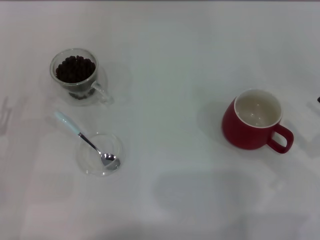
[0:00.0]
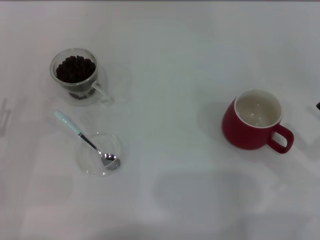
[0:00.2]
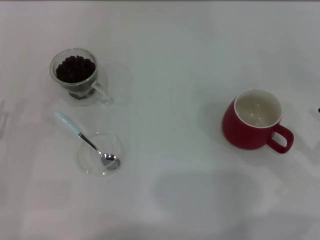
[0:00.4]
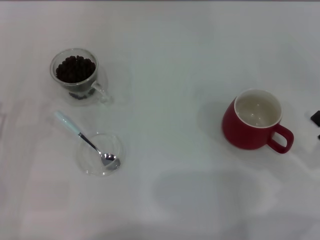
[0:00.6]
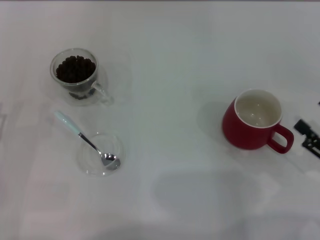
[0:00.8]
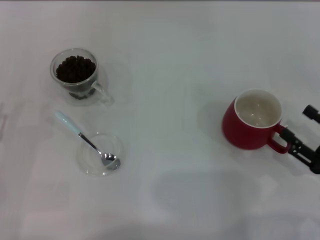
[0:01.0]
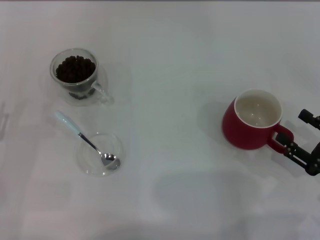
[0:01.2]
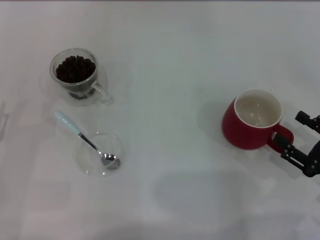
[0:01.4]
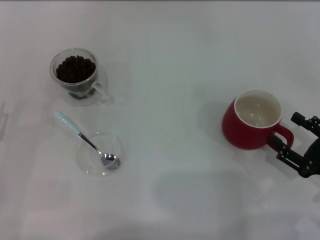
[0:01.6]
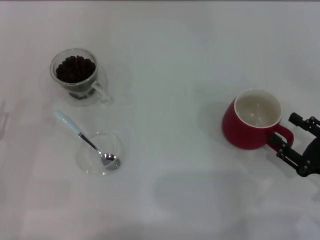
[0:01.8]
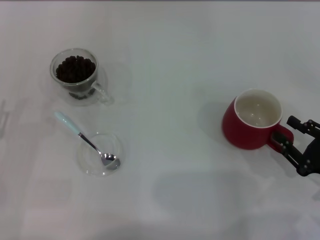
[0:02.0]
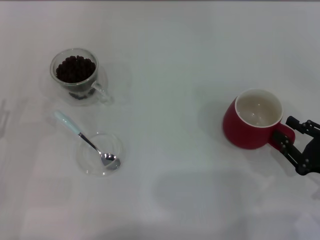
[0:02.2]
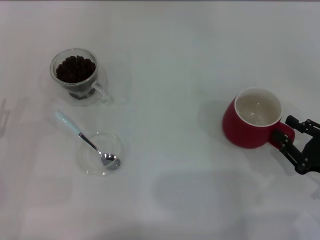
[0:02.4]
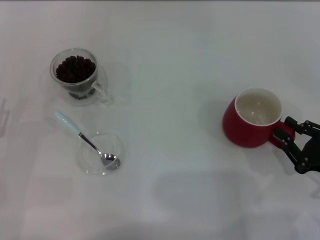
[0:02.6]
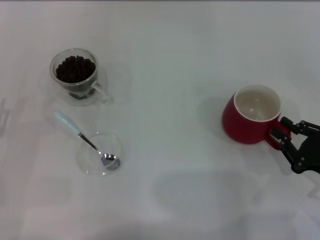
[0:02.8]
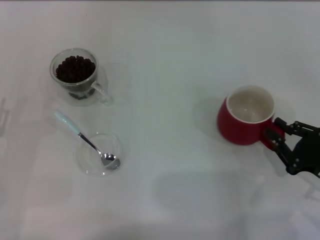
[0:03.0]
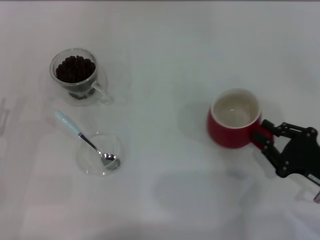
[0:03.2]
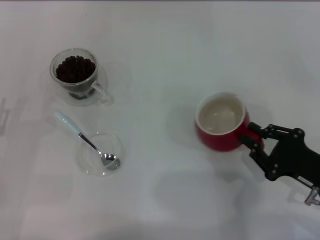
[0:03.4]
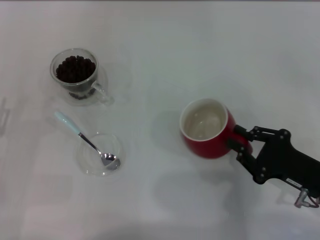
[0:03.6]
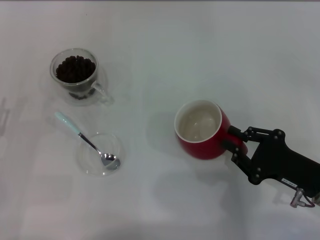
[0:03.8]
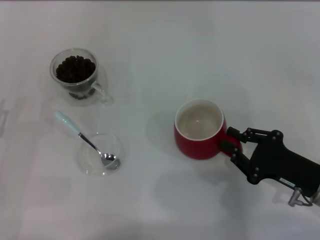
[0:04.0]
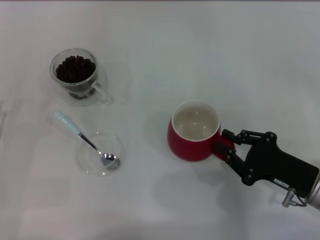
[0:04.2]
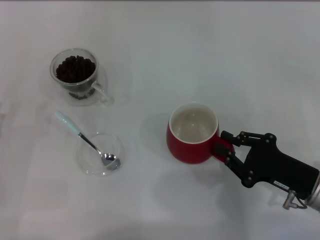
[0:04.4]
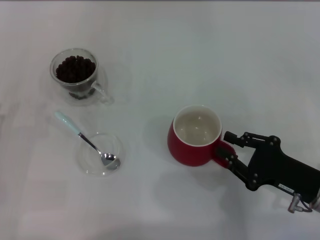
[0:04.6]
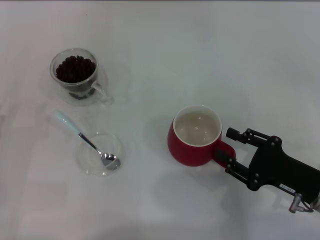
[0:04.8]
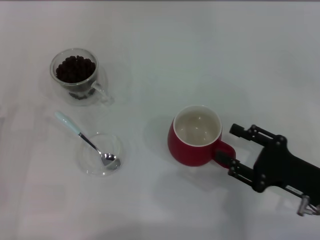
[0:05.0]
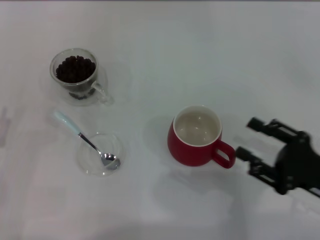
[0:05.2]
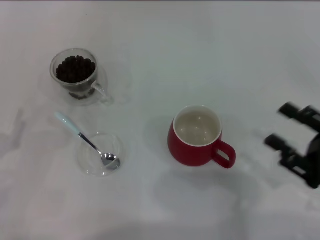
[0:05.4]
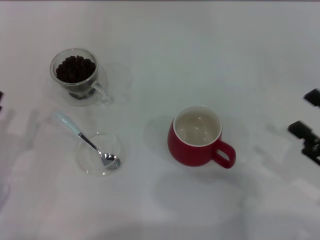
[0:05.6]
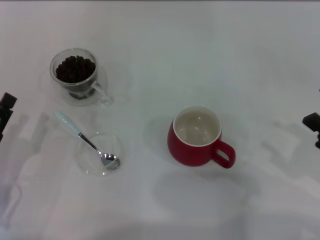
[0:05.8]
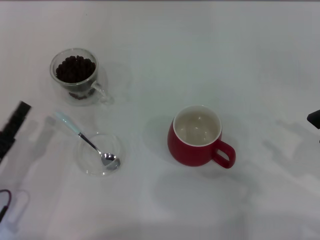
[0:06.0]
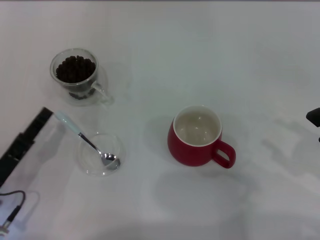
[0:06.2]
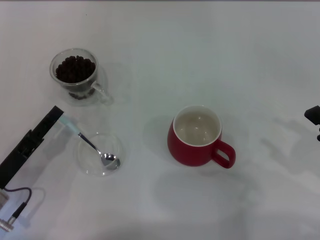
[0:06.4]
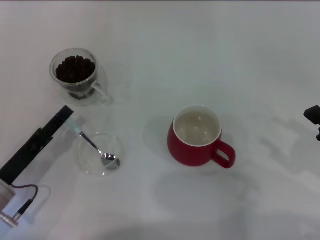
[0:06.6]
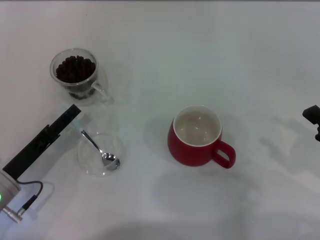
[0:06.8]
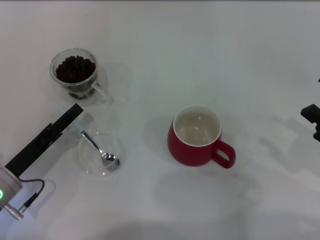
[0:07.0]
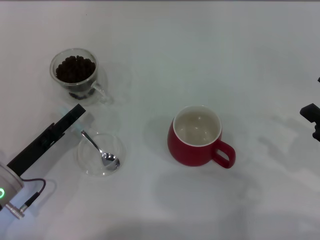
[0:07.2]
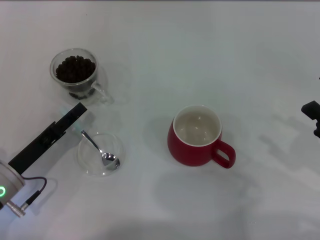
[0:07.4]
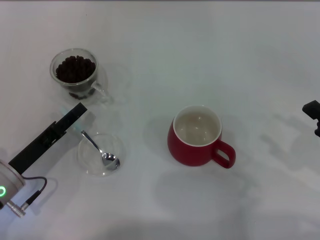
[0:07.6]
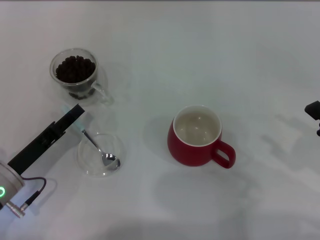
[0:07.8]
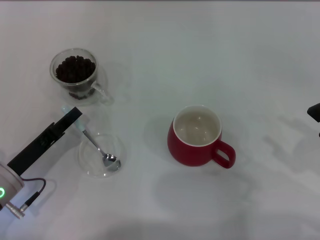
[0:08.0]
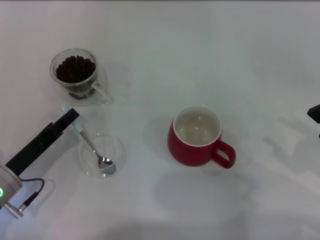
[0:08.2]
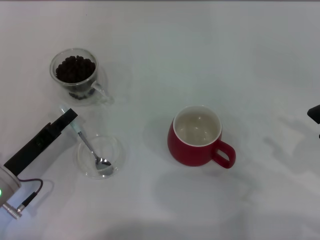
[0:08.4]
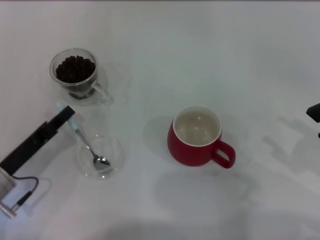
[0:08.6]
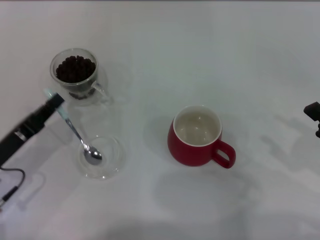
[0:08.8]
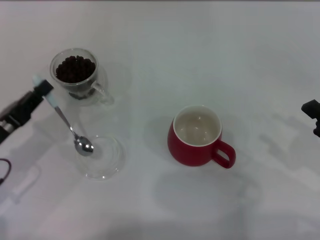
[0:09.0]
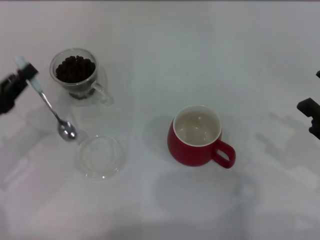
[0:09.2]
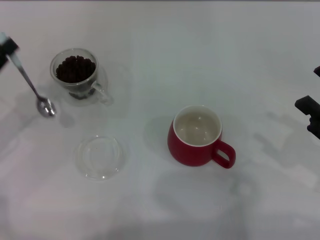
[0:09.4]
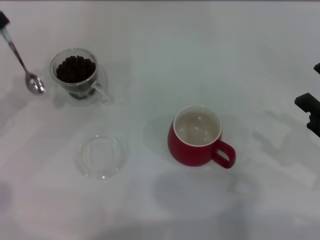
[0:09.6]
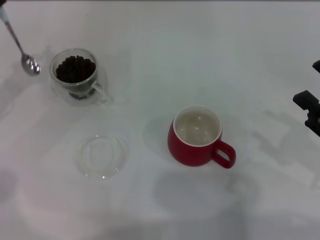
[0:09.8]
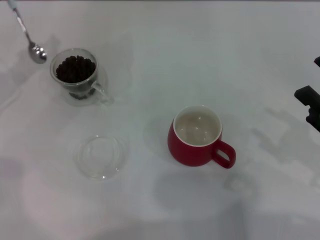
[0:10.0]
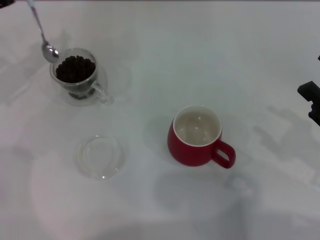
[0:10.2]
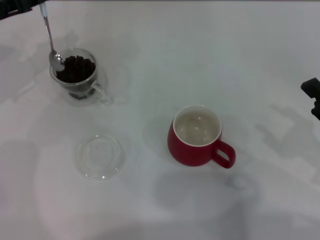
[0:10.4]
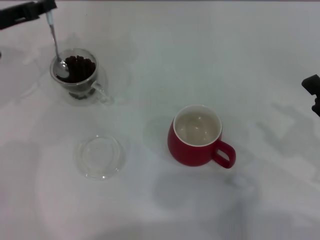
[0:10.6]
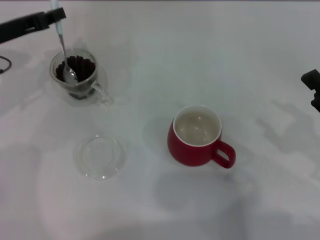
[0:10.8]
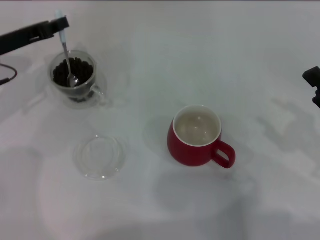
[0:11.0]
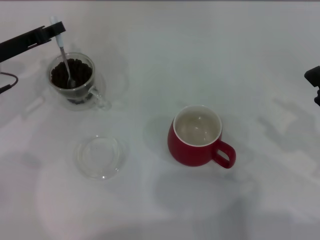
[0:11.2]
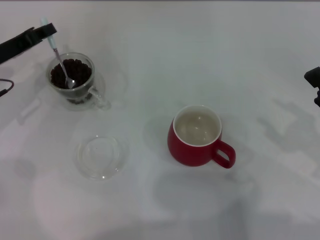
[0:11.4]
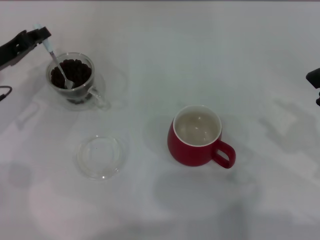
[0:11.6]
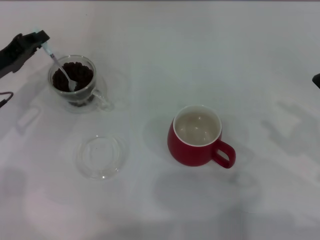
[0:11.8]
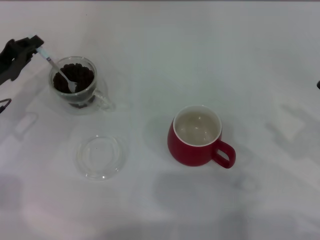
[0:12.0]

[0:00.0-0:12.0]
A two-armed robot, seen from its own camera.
Task of the whole recording: Use a blue spoon to take out the coffee beans from the glass and pour them into the red cup.
Step, 0:00.0 to 0:05.0: Move the cup to the center of view with the left gripper.
Step, 0:05.2 to 0:09.0: Pick up the spoon with the right gripper.
0:00.0 to 0:01.6: The grippers stay close to where they were, moving slightly.
0:01.6 to 0:03.0: The right gripper closes up.
0:03.0 to 0:04.4: The right gripper goes approximately 5 cm to the left.
0:04.4 to 0:06.0: The left gripper heads to the right, covering some 5 cm. Meanwhile the right gripper travels to the right and upward by approximately 10 cm, and opens.
0:06.0 to 0:07.6: The left gripper moves approximately 5 cm.
0:07.6 to 0:09.0: The left gripper changes place by about 5 cm, and closes.
0:09.0 to 0:10.4: The left gripper shifts roughly 20 cm forward and upward.
0:10.4 to 0:12.0: The left gripper goes roughly 10 cm downward and backward.

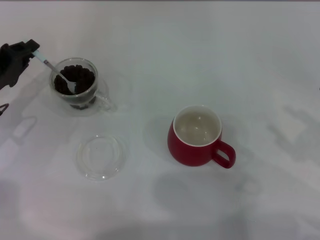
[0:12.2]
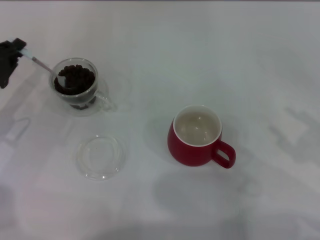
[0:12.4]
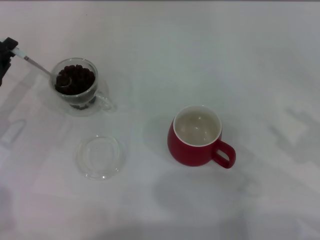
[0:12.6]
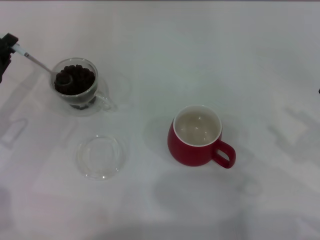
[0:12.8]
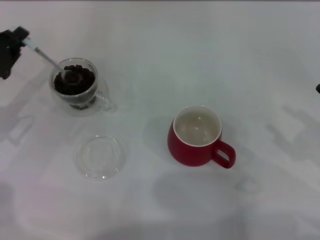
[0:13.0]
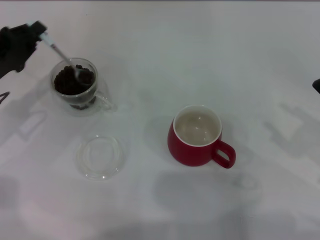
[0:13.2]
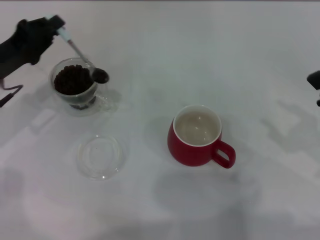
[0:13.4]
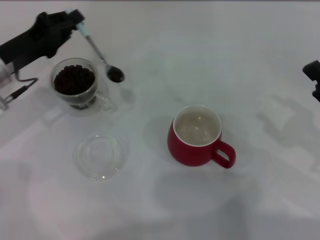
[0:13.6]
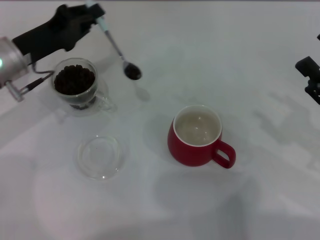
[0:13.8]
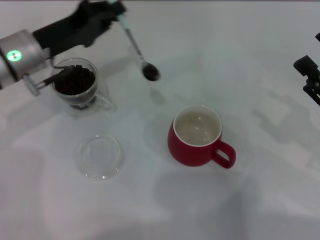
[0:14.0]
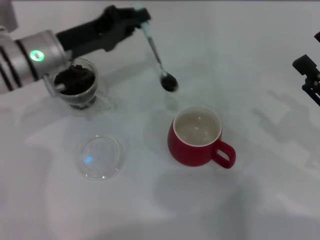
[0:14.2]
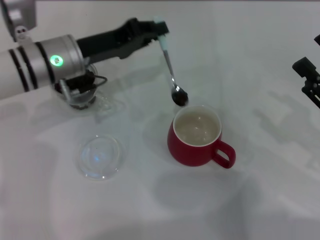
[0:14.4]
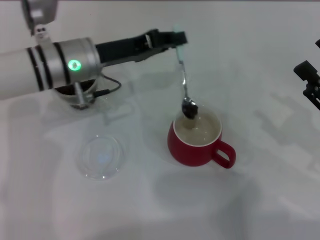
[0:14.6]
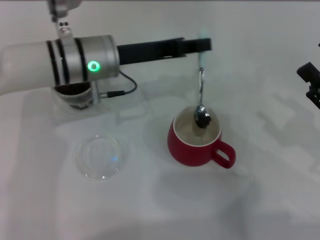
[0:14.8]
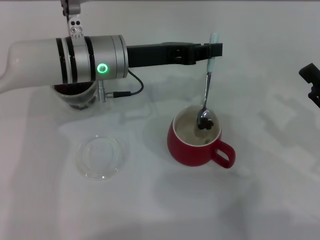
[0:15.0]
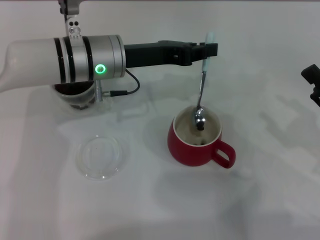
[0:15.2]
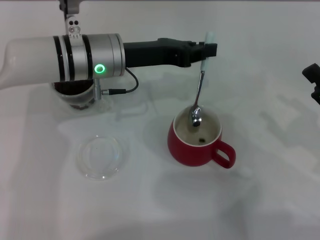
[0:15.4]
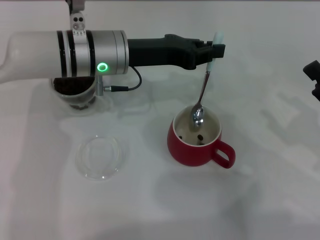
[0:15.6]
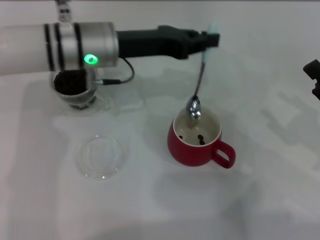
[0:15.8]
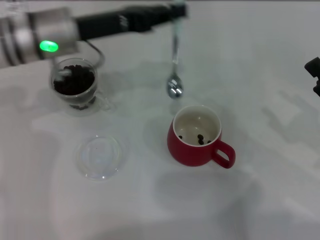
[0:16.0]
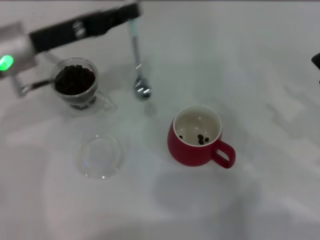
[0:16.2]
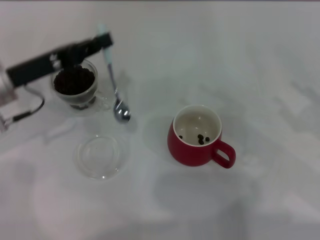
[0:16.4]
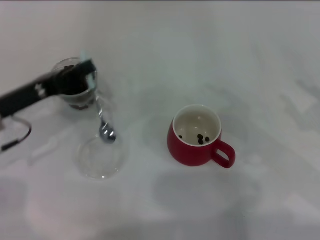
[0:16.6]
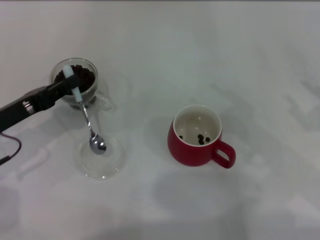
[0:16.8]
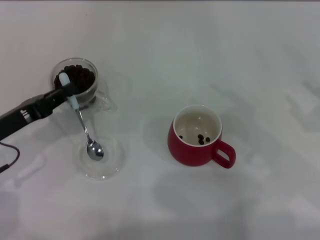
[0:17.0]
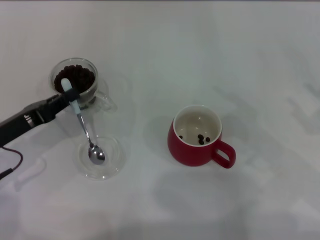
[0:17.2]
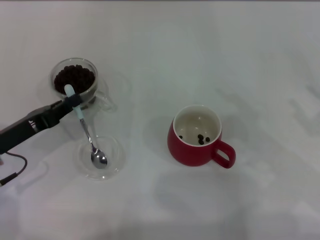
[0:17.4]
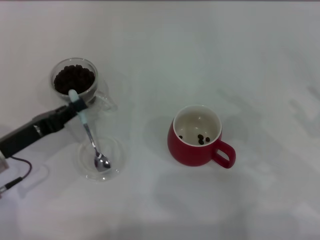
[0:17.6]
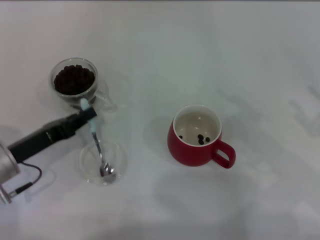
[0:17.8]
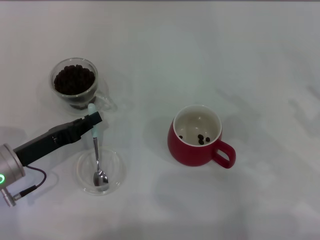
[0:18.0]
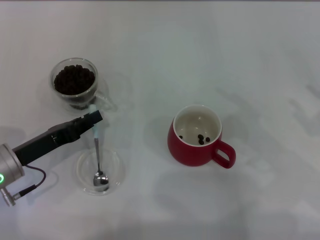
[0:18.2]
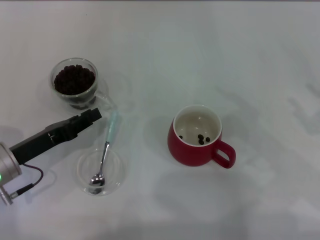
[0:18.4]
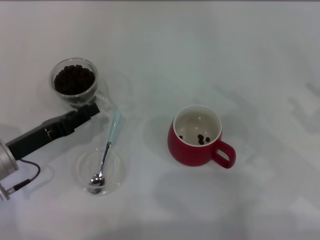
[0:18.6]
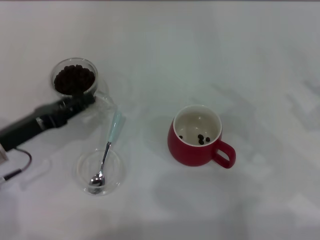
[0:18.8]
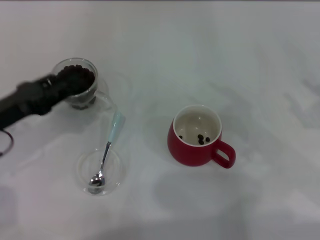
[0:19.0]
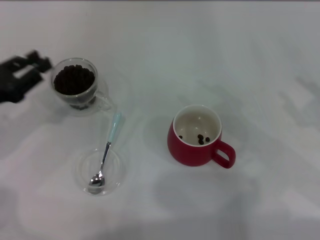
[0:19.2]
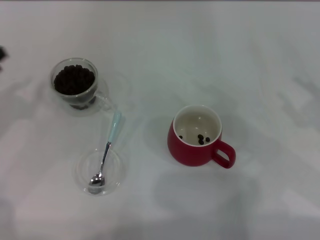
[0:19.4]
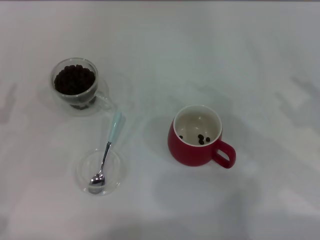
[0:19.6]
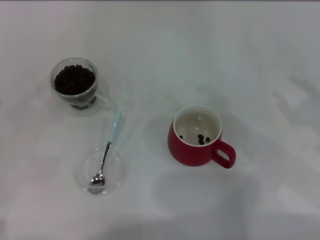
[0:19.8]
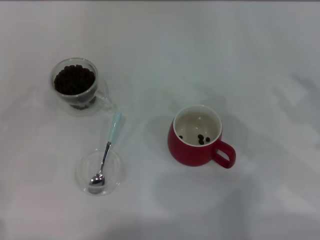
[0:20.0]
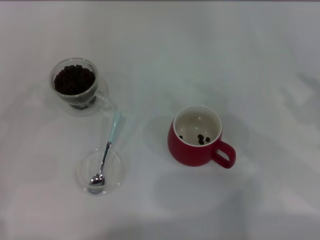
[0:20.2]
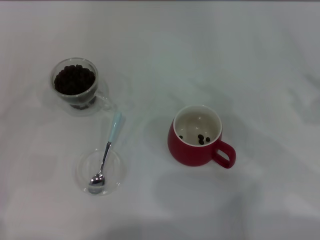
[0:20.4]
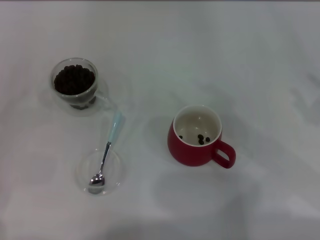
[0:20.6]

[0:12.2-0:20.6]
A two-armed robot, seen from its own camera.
Task of the whole recording: Use a blue spoon to take out the coffee beans from the glass and pour them into the red cup.
Step, 0:12.2 to 0:15.8: Scoop a spoonful of beans into the cup with the right gripper.
0:12.2 to 0:13.6: The left gripper ends up about 5 cm from where it was.
0:13.6 to 0:15.0: The left gripper shifts about 15 cm to the right.
0:15.0 to 0:16.4: The left gripper goes approximately 15 cm to the left.
0:16.4 to 0:17.8: The left gripper shifts about 10 cm downward and backward.
0:17.8 to 0:19.2: The left gripper shifts about 10 cm upward and to the left, and opens.
0:19.2 to 0:20.6: The left gripper goes approximately 10 cm to the left and backward.

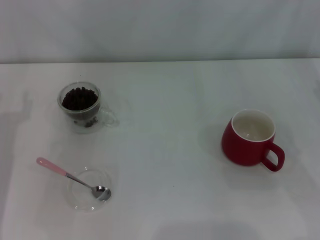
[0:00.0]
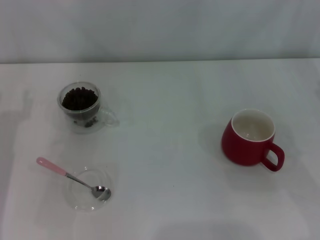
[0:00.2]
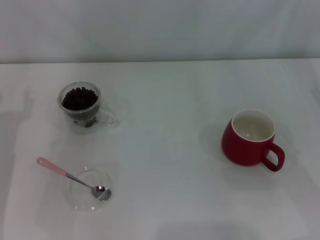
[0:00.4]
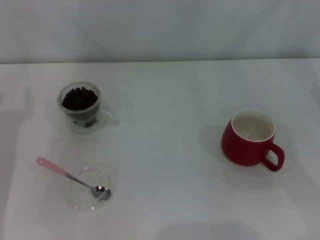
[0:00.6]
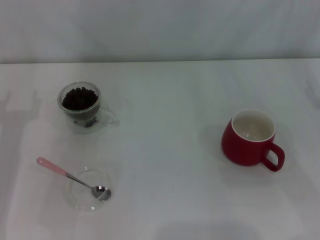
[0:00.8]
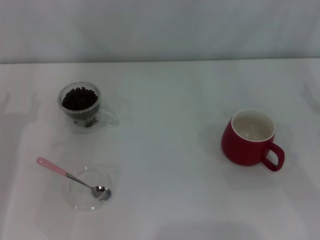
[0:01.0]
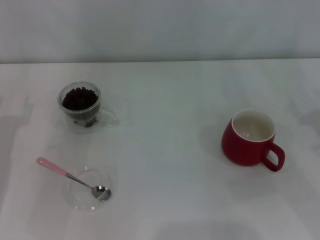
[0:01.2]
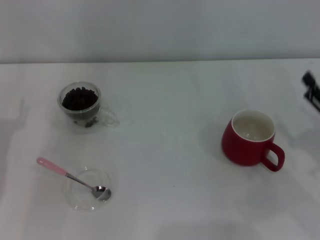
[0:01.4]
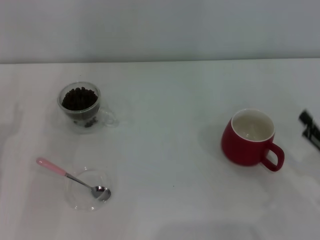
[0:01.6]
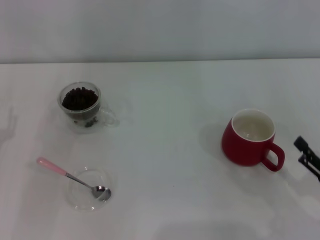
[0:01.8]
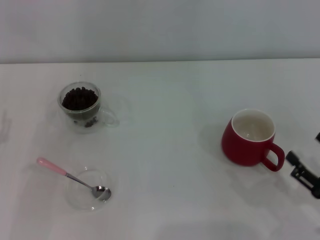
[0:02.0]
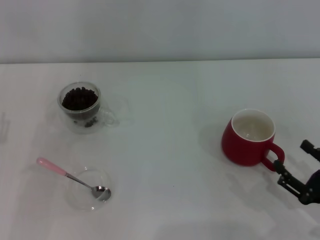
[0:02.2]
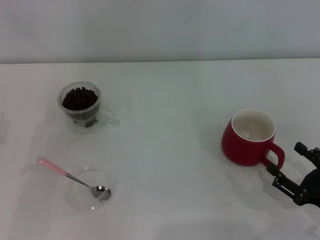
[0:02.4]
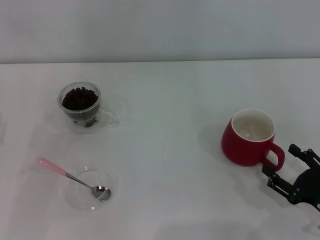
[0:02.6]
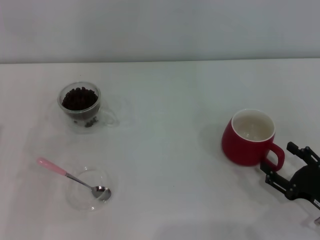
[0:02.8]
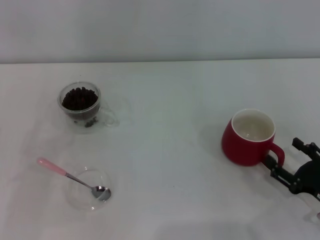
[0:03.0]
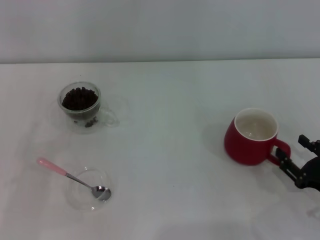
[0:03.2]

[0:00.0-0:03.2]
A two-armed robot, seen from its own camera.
Task of the whole recording: Use a pink spoon to take out the coffee beans from the glass and pour them into the red cup.
0:00.0 to 0:01.6: The right gripper travels backward and downward by some 10 cm.
0:01.6 to 0:03.2: The grippers move only a little.
